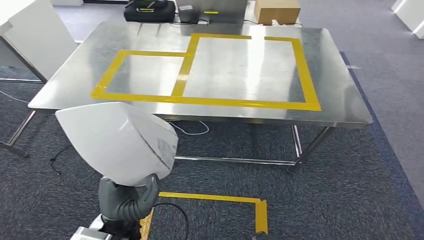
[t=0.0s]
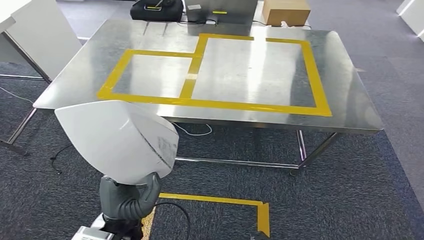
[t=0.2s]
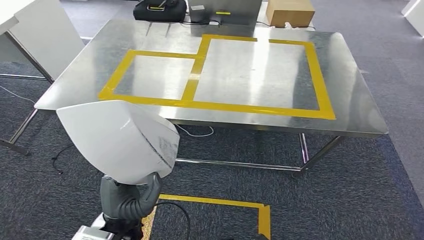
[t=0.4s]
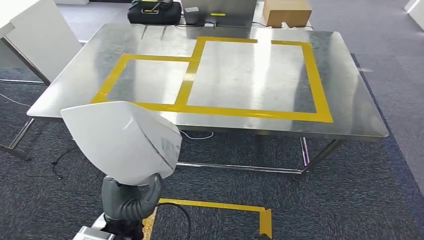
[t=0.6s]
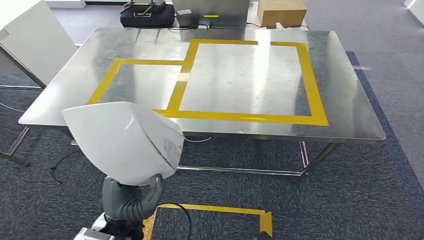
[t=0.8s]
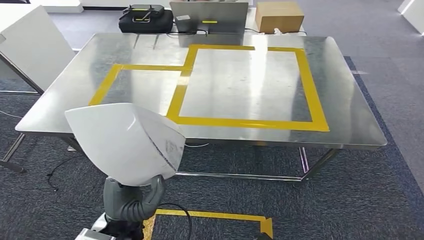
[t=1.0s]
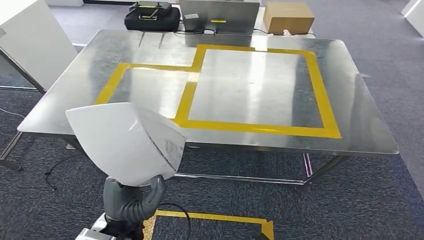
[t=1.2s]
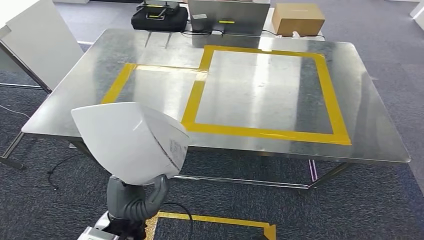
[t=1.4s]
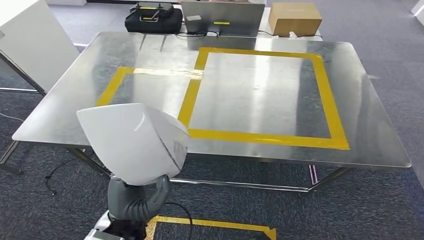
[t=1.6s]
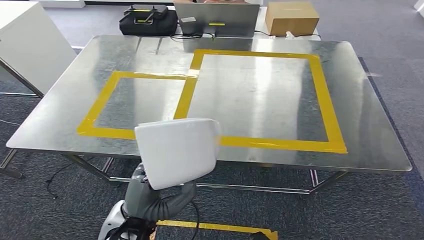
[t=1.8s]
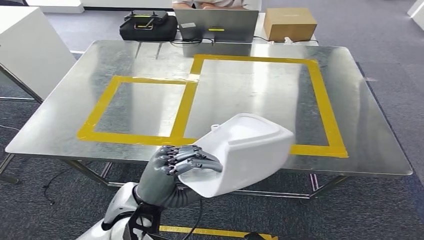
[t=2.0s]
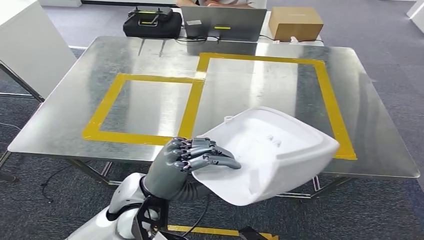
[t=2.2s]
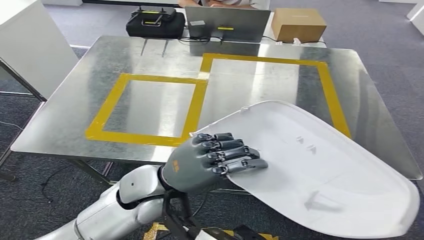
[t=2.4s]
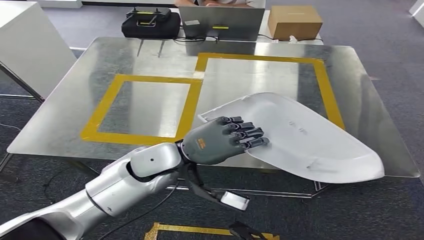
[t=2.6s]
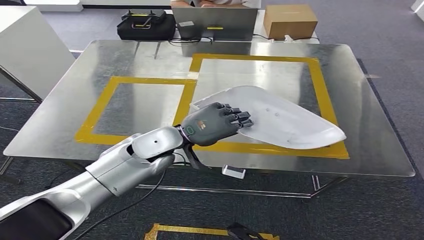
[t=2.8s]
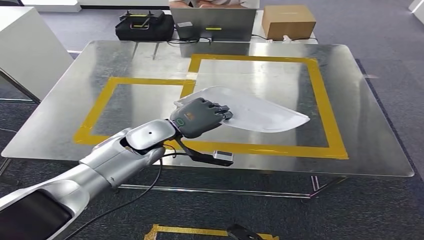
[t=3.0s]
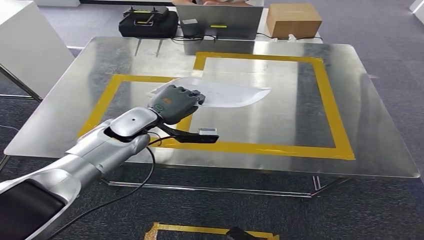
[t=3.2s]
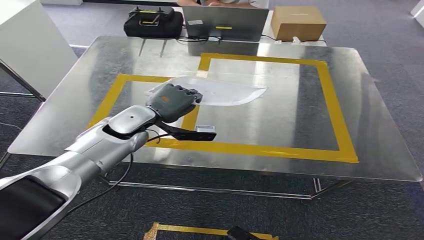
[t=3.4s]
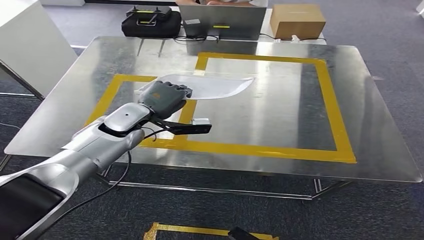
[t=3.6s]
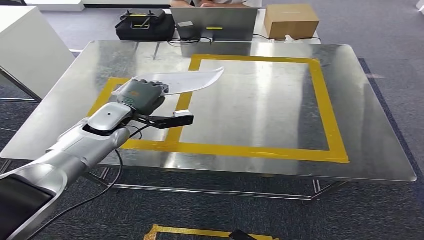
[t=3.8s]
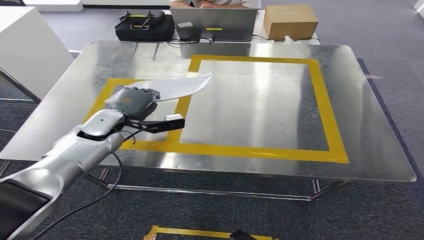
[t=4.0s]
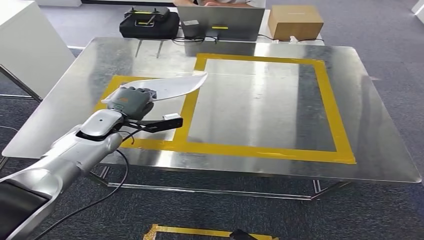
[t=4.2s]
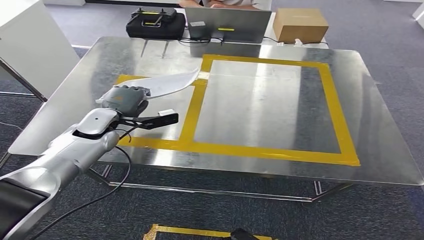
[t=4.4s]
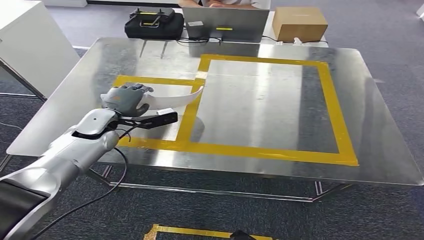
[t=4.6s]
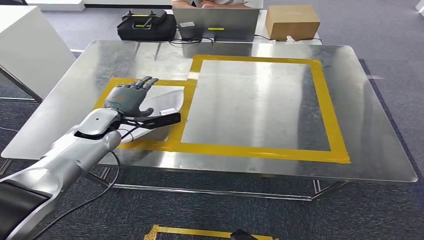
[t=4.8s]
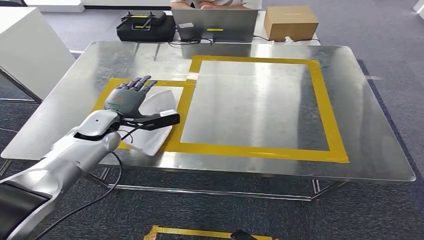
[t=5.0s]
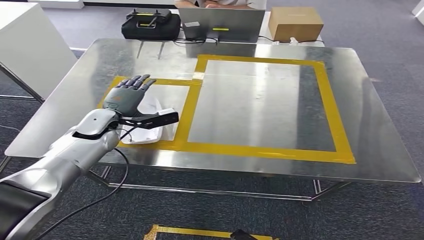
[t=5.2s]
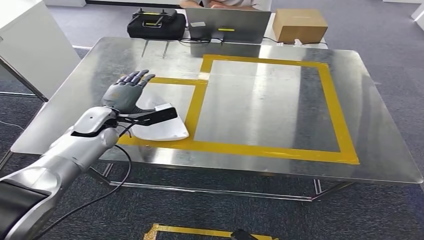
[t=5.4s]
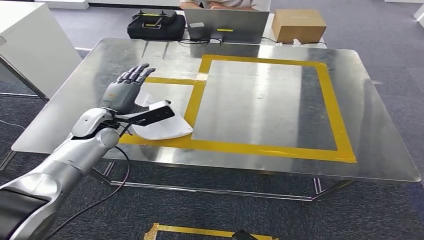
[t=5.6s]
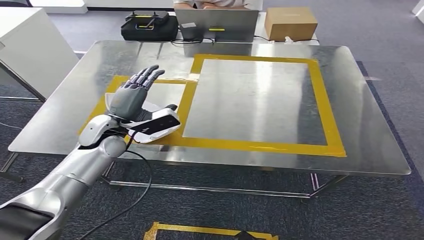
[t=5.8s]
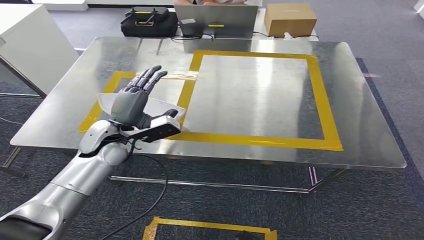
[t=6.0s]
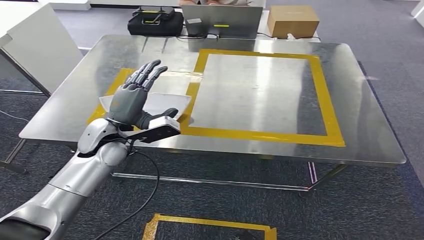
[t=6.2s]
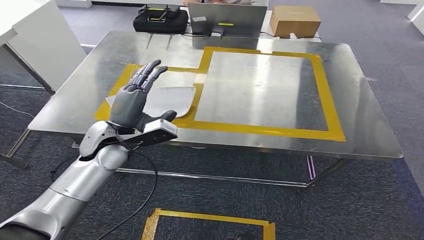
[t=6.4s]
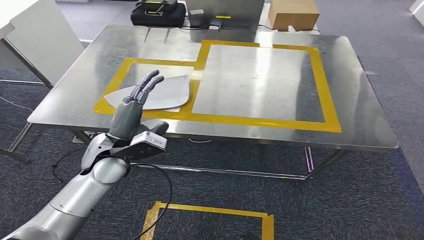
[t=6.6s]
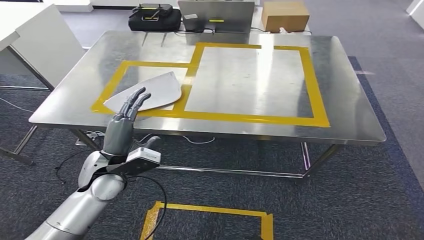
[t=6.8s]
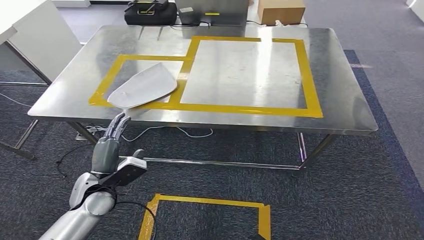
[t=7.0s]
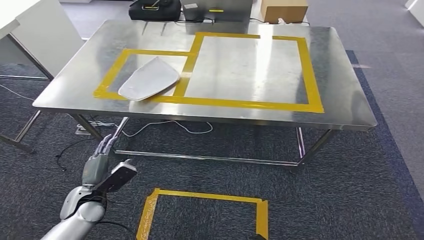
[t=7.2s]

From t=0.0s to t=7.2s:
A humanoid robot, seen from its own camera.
Step, from t=1.6s to t=7.2s: Return to the initial position at the workbench.
